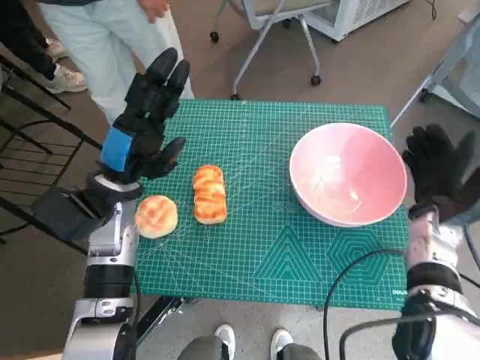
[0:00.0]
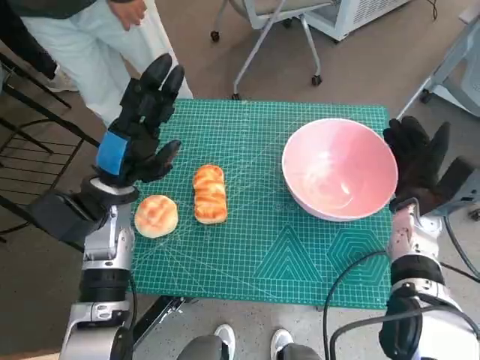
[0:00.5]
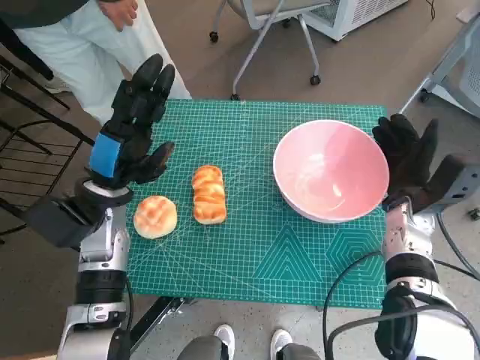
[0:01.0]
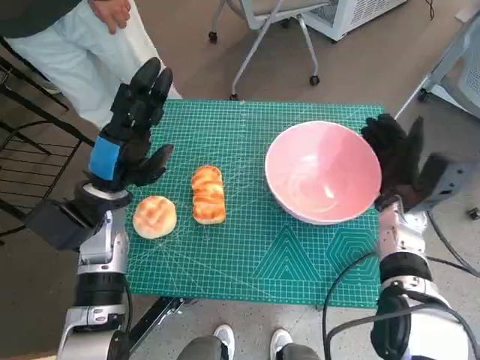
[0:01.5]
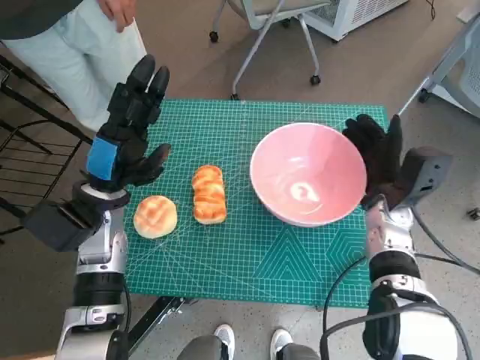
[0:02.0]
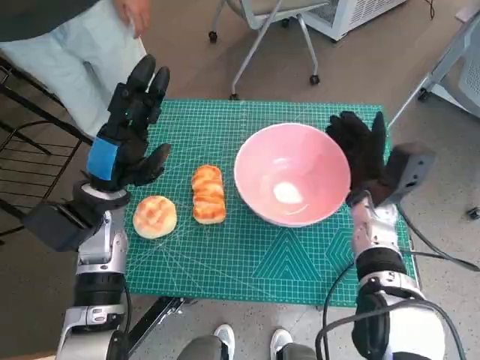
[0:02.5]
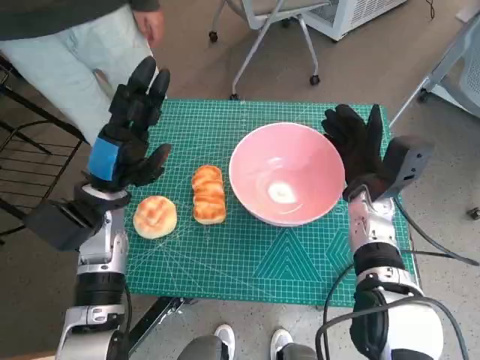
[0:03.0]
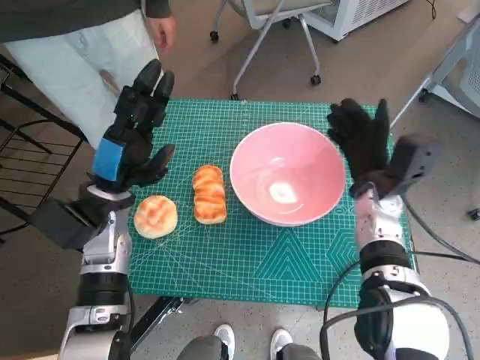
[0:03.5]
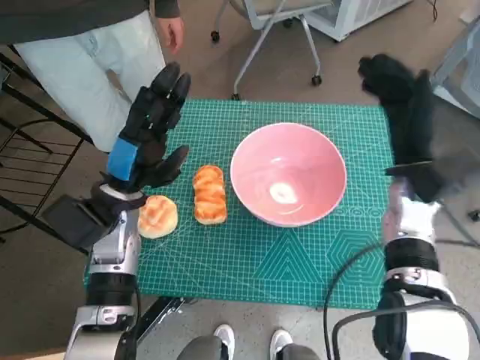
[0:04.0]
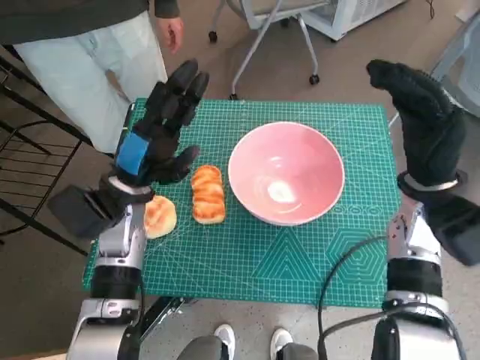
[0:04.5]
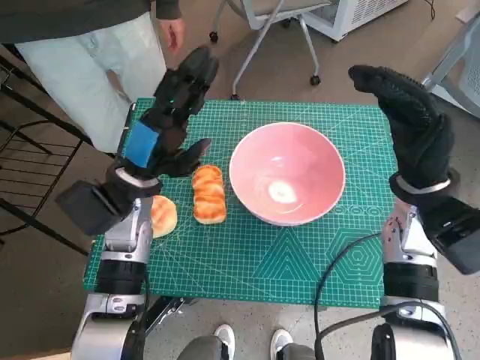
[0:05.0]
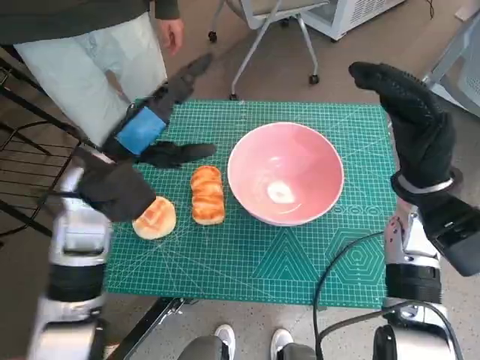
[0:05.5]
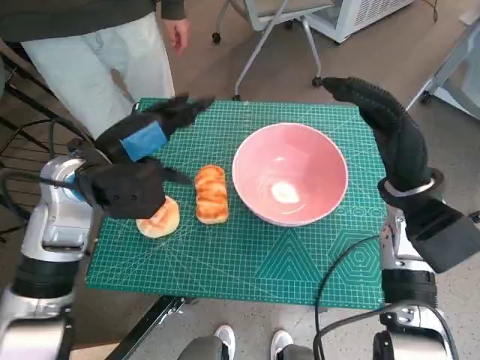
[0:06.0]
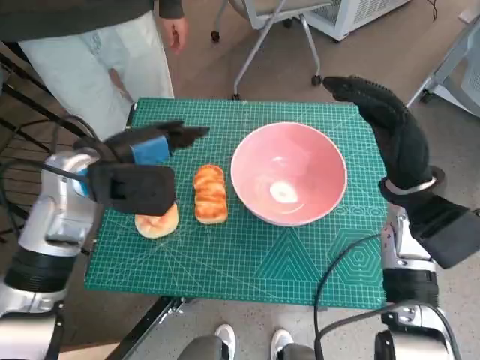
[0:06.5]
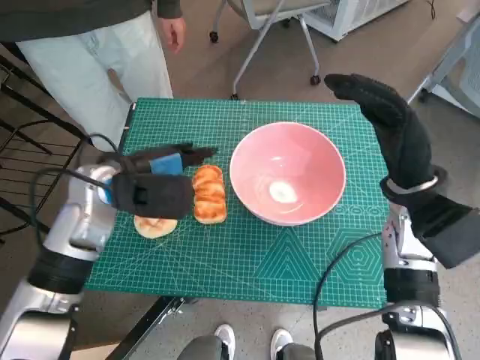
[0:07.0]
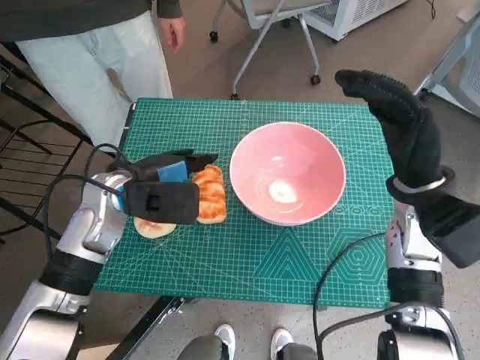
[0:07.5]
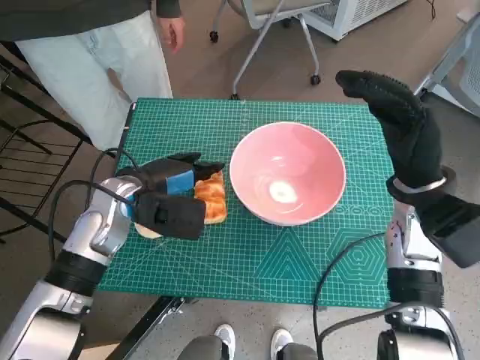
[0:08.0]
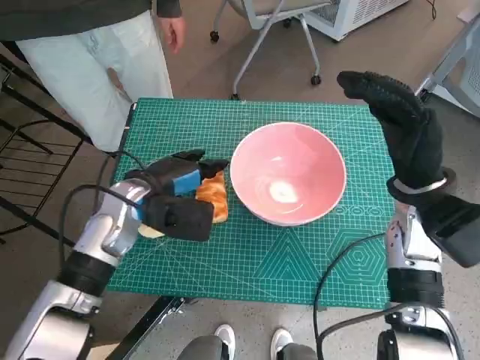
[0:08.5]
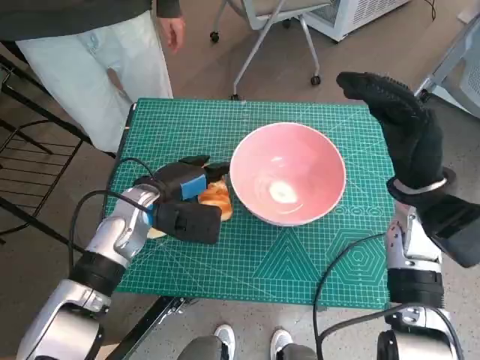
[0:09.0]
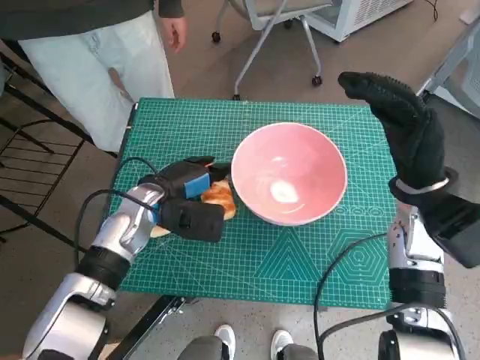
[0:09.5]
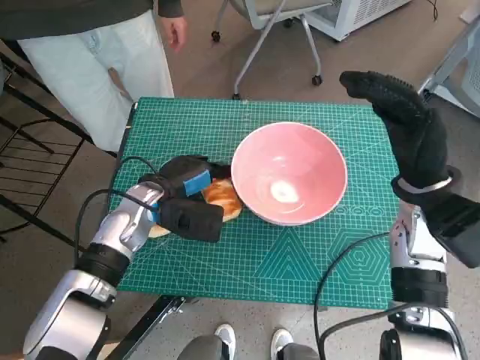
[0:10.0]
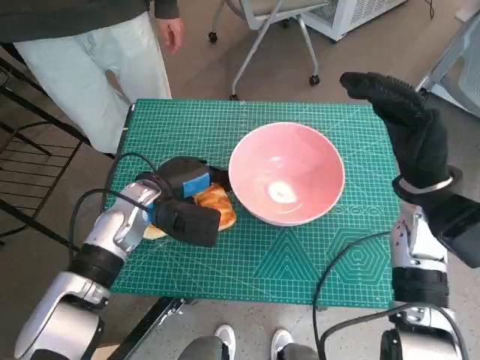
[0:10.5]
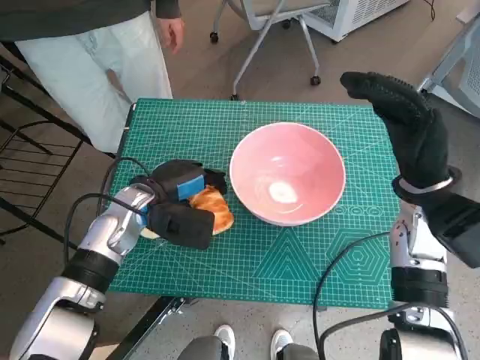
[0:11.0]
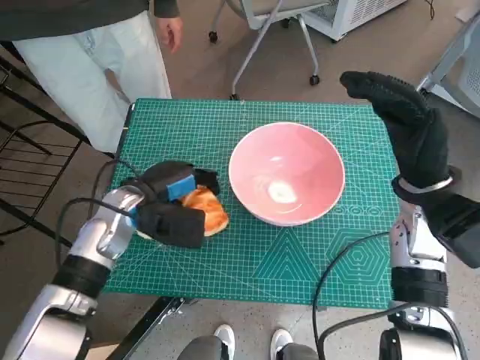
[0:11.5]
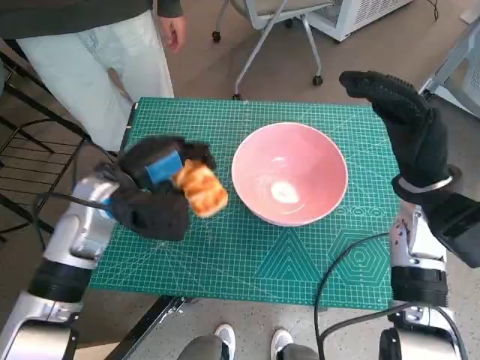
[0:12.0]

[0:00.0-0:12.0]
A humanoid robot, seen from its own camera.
Task of the whole recording: Push the bowl into the center of the table and put the bread into the bowl.
Step, 0:00.0 to 0:03.5: Move the pink bowl to the center of table with right hand.
Step, 0:04.0 to 0:10.0: Grasp the long bread with left hand.
0:00.0 to 0:02.0: The right hand moves to the left, about 5 cm.
0:02.0 to 0:04.0: The right hand goes some 5 cm upward.
0:04.0 to 0:06.0: The left hand goes about 10 cm upward.
0:06.0 to 0:08.0: The left hand moves downward, about 5 cm.
0:08.0 to 0:10.0: The hands make only small movements.
0:10.0 to 0:12.0: The left hand goes some 5 cm upward.

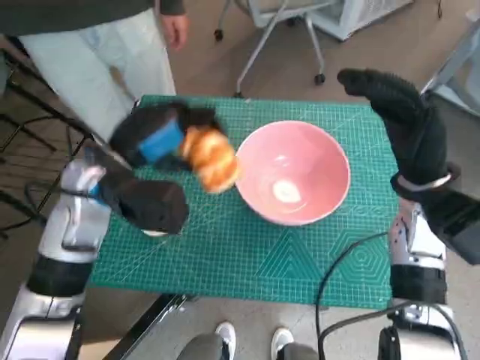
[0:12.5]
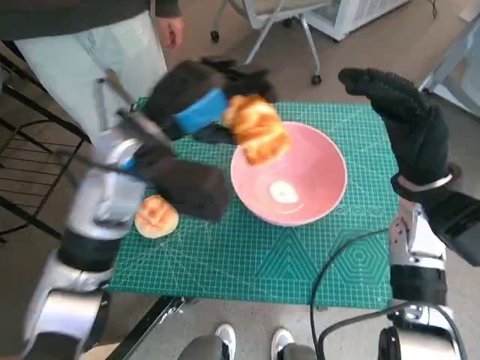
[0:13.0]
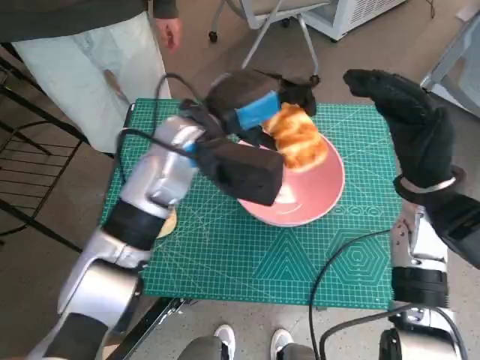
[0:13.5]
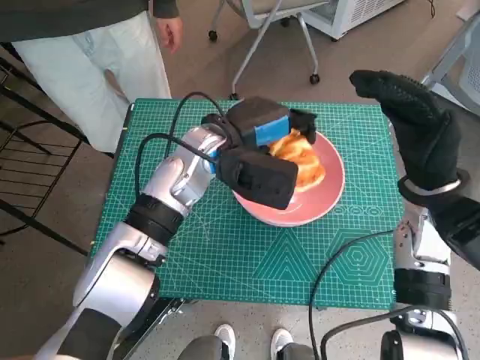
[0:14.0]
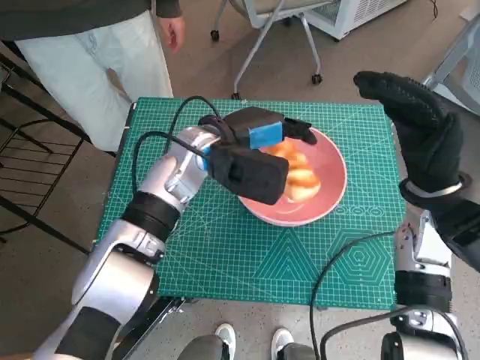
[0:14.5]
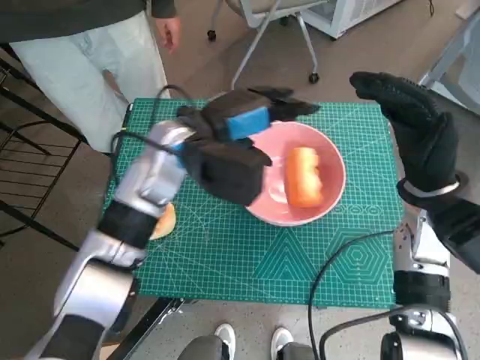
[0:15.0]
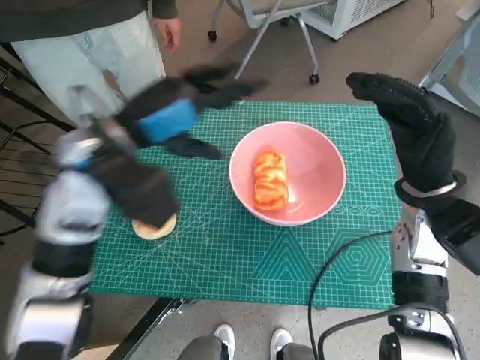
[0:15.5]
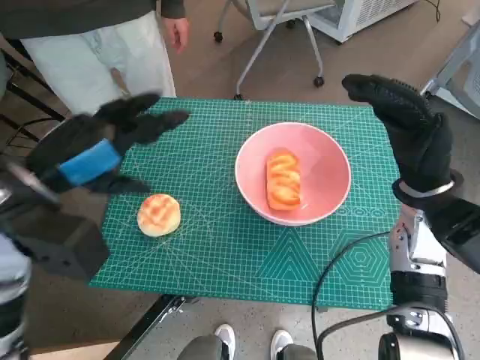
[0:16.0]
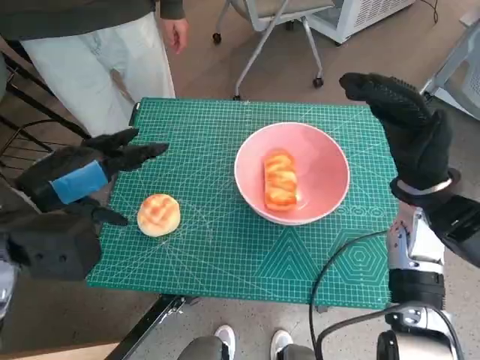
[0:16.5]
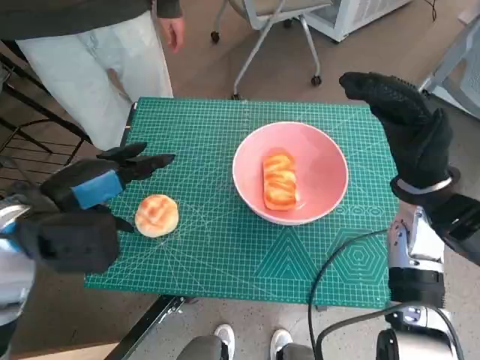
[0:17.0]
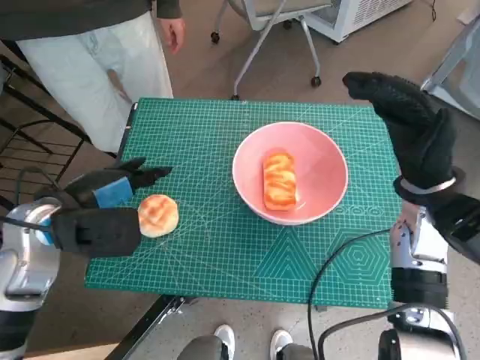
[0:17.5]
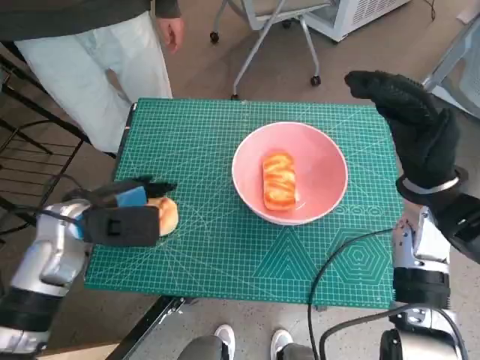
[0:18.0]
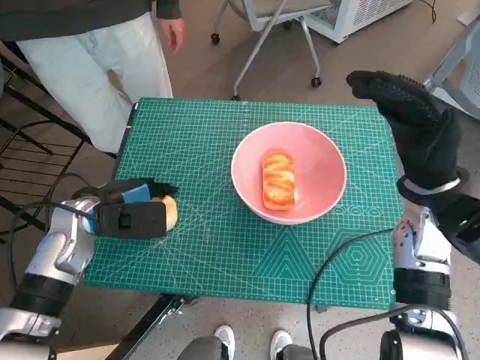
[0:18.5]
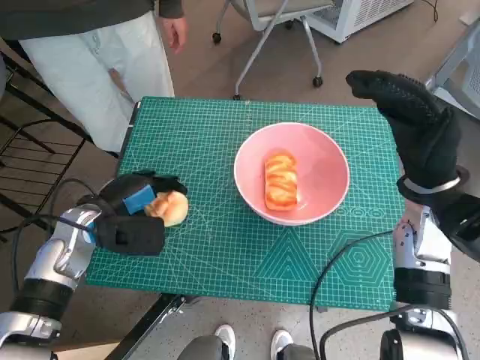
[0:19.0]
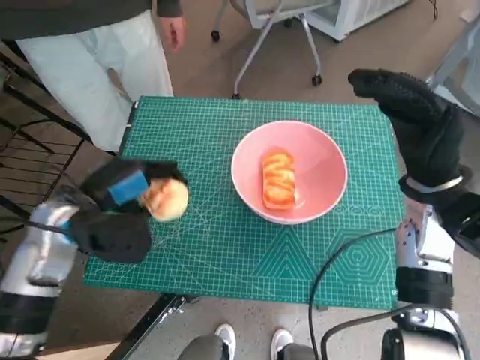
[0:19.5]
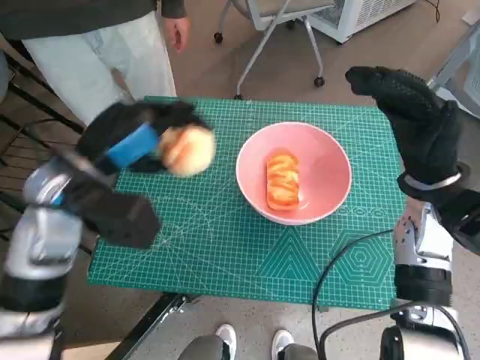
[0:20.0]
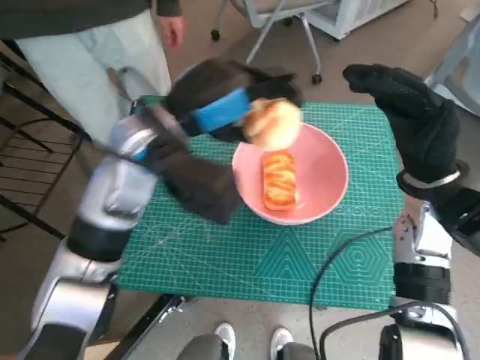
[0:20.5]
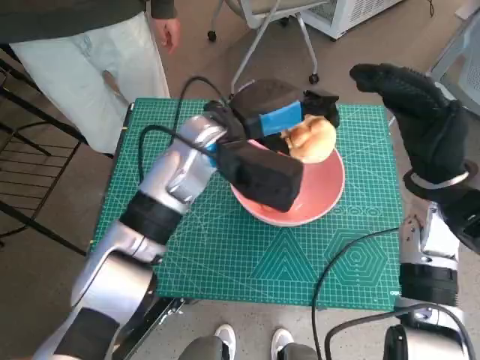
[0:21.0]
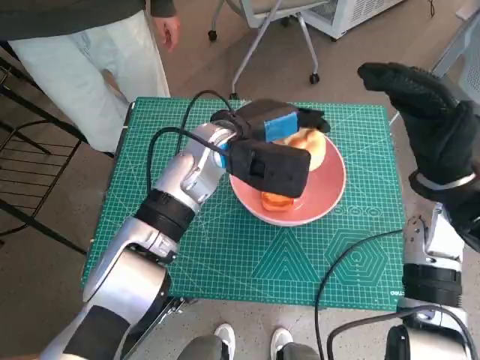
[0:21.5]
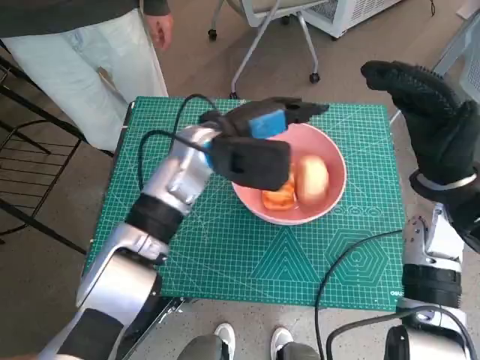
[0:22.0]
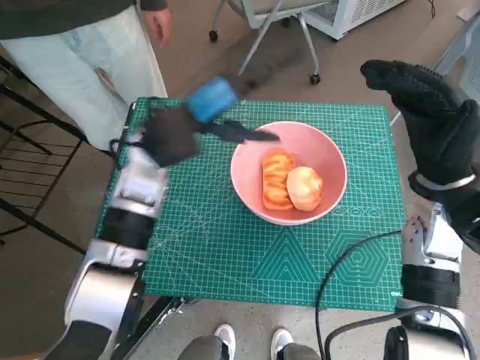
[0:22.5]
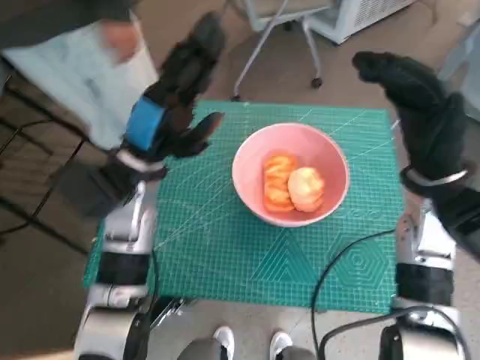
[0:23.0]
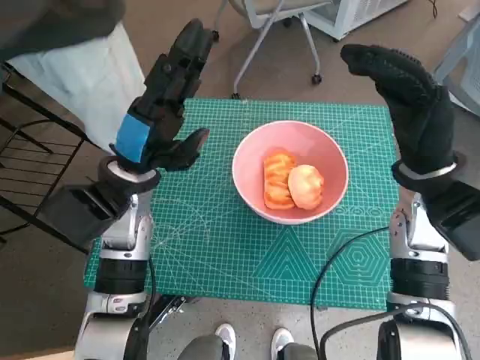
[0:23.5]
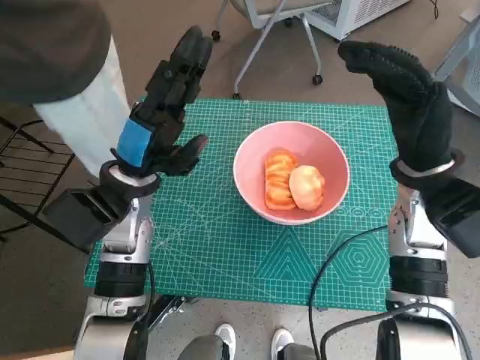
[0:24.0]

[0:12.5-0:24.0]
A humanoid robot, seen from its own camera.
Task of the whole recording: Push the bowl into the center of the table and put the bread into the bowl.
Step, 0:12.5 to 0:15.0: Place the long bread in pink bowl with left hand.
Step, 0:15.5 to 0:18.5: Grasp the round bread with left hand.
Step, 0:19.0 to 0:22.0: Place the round bread in pink bowl with left hand.
0:12.5 to 0:14.5: The left hand is displaced to the right and forward by approximately 15 cm.
0:14.5 to 0:16.5: The left hand goes roughly 20 cm to the left and backward.
0:16.5 to 0:18.5: The left hand is displaced downward and forward by roughly 15 cm.
0:18.5 to 0:20.0: The left hand heads upward, covering some 10 cm.
0:20.0 to 0:22.0: The left hand moves to the right and forward, roughly 15 cm.
0:22.0 to 0:24.0: The left hand travels to the left and backward by about 10 cm.
